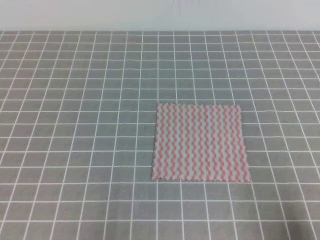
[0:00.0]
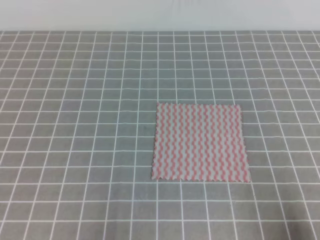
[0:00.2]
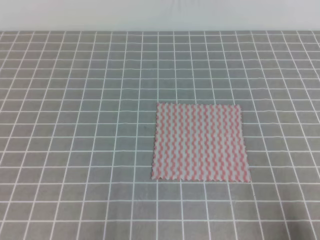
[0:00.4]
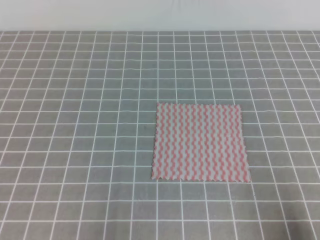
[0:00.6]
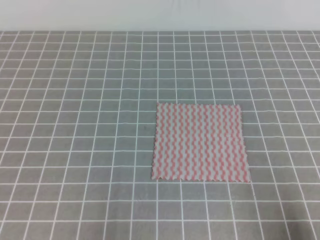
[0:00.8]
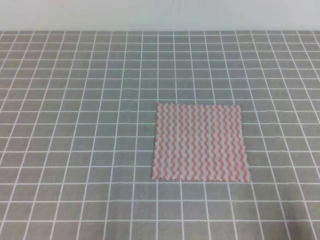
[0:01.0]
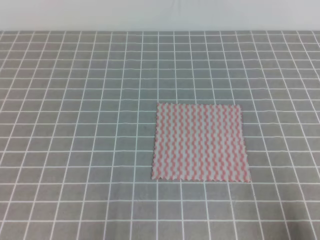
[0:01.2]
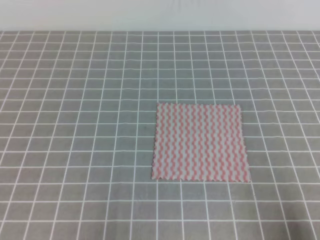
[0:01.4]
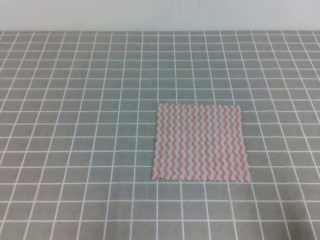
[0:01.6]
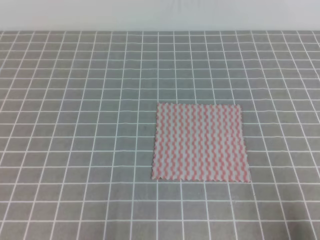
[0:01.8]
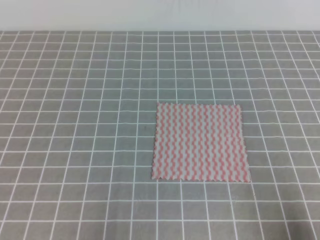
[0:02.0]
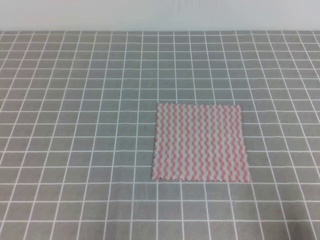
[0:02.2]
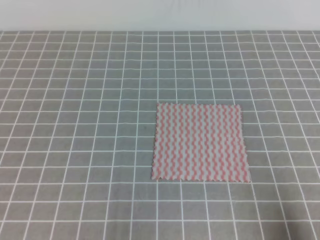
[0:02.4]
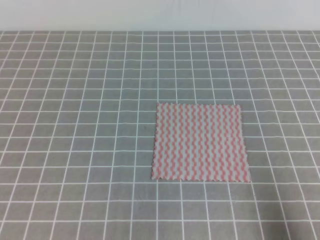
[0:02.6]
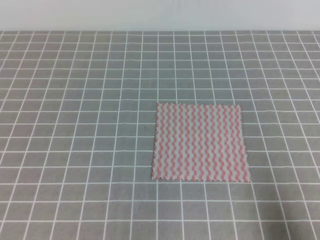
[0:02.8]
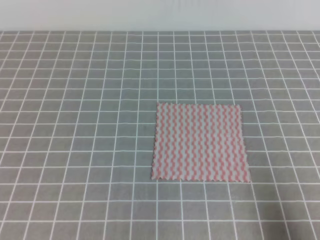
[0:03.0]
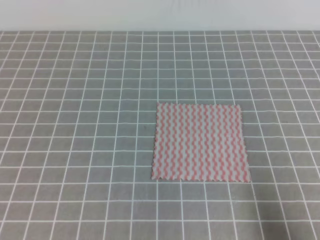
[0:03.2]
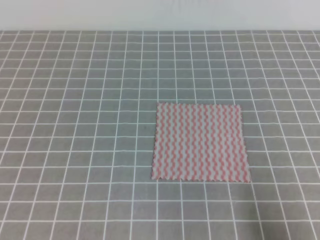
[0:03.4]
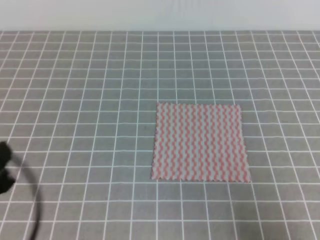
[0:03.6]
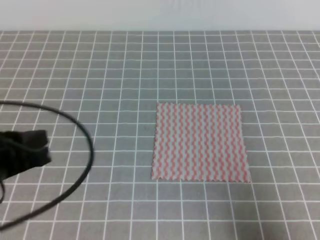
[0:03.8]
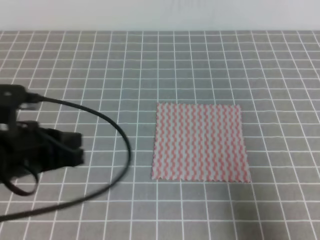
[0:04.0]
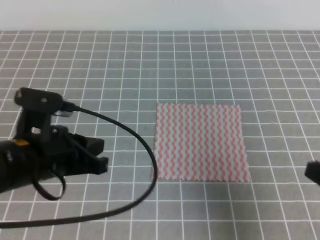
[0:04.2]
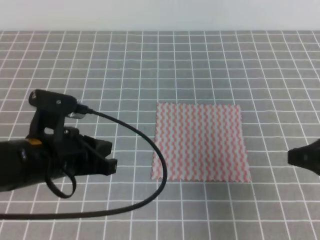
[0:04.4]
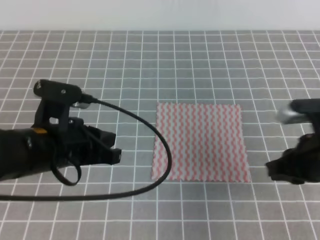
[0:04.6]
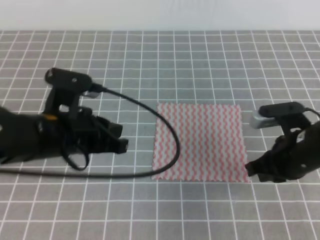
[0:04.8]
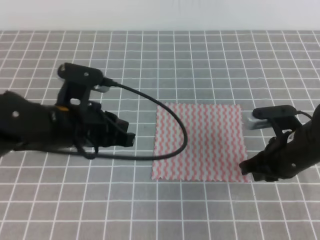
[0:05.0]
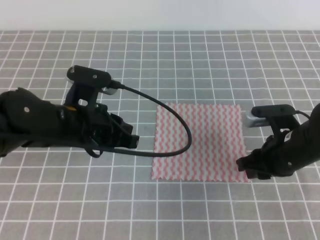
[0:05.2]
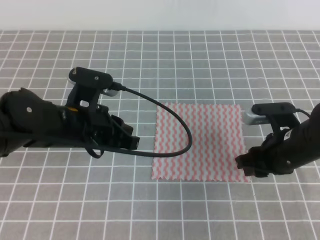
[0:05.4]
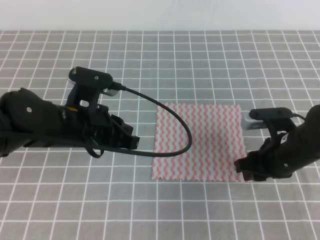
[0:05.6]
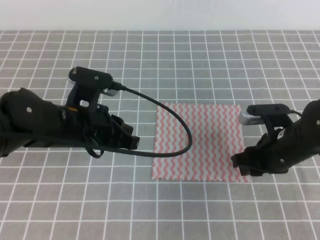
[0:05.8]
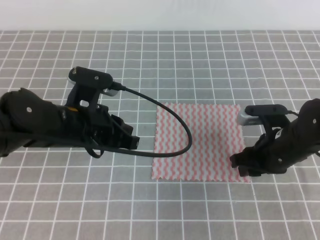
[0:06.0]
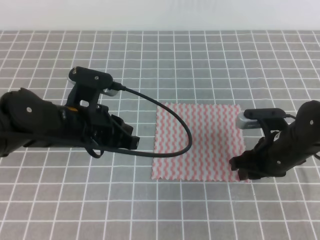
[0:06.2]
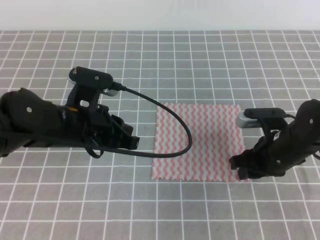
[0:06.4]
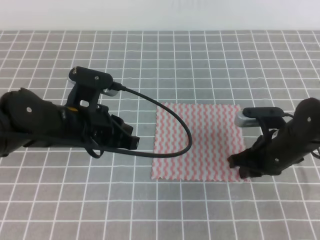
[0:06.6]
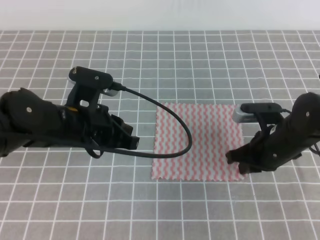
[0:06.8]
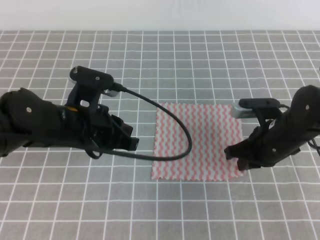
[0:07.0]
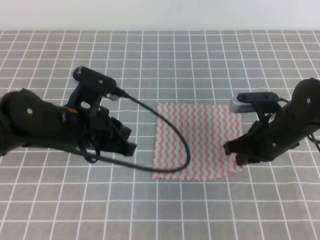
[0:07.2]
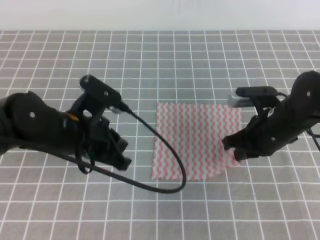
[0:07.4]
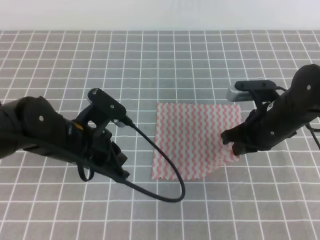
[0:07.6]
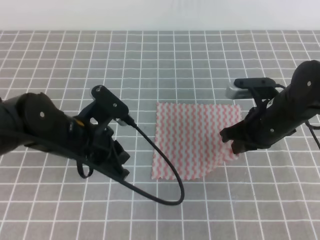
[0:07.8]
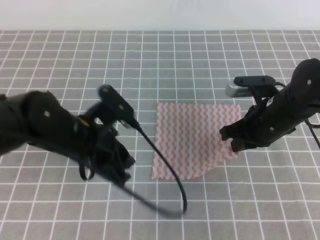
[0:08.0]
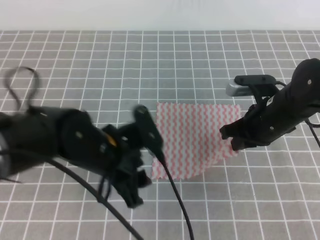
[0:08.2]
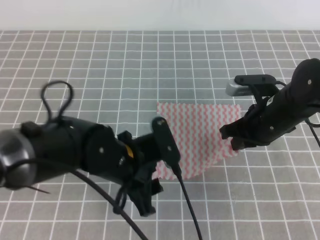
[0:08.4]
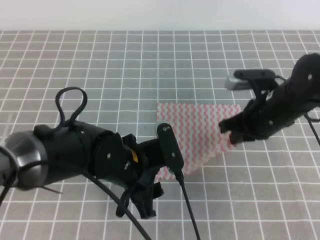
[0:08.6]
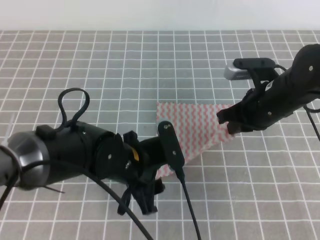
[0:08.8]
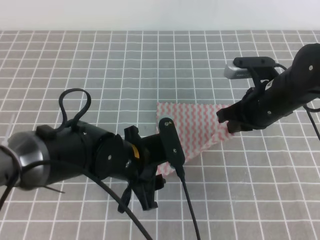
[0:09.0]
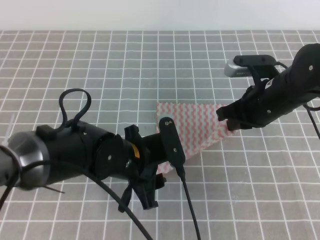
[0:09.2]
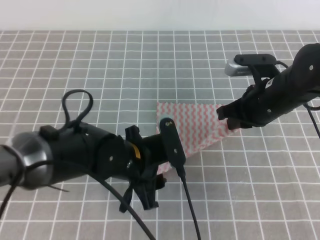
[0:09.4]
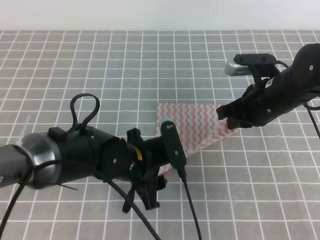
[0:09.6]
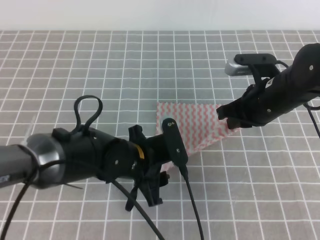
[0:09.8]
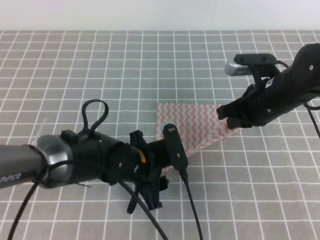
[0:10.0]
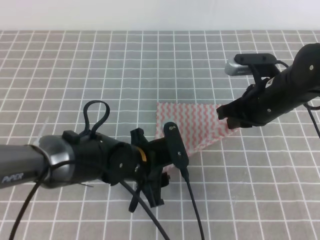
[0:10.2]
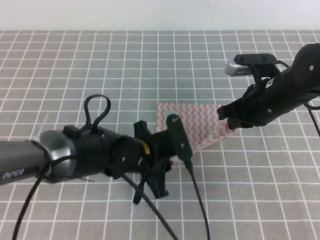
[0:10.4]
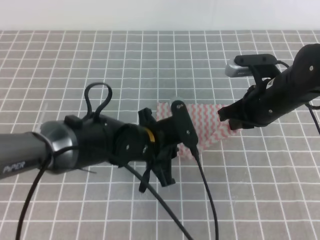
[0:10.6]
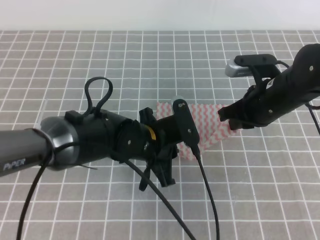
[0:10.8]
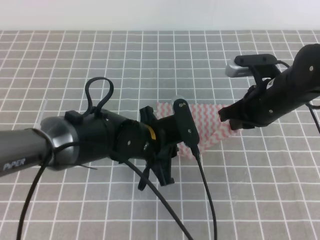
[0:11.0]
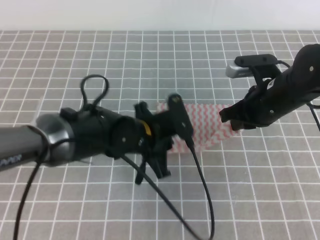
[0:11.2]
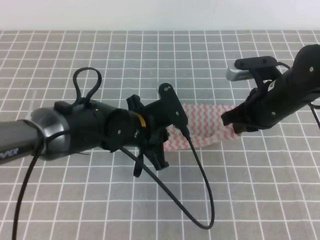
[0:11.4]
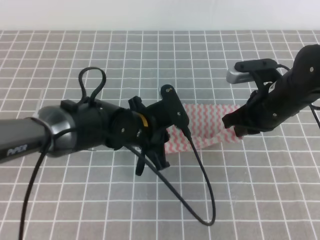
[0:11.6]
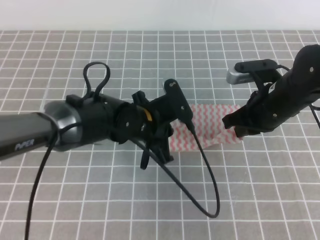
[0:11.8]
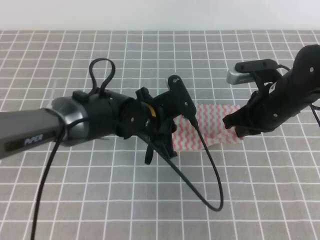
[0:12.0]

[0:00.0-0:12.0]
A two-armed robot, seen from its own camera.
Step, 0:00.0 to 0:11.2: Fold the towel upwards with the both gripper.
0:00.0 to 0:01.6: The two grippers keep their place.
0:03.0 to 0:04.4: The left gripper shifts some 20 cm forward and to the right; the right gripper heads forward, upward and to the left, covering roughly 15 cm.
0:04.4 to 0:06.0: The left gripper moves forward, roughly 5 cm; the right gripper travels forward, downward and to the left by approximately 15 cm, and opens.
0:06.0 to 0:07.6: The right gripper closes.
0:07.6 to 0:09.0: The left gripper heads to the right, covering some 5 cm, and opens.
0:09.0 to 0:10.4: The left gripper closes up.
0:10.4 to 0:12.0: The left gripper travels forward by approximately 5 cm, and closes.

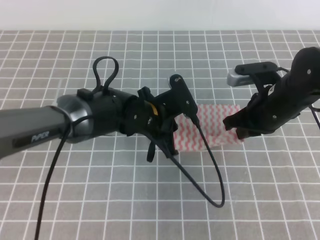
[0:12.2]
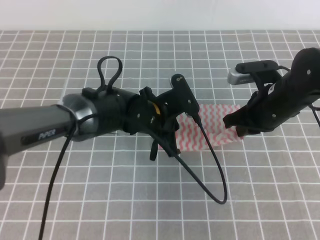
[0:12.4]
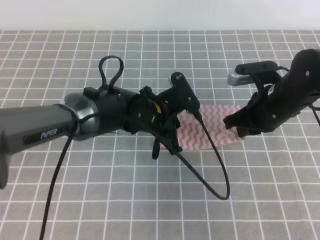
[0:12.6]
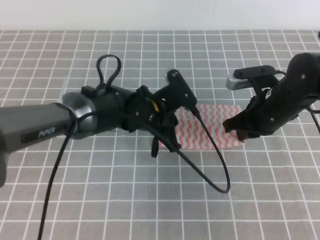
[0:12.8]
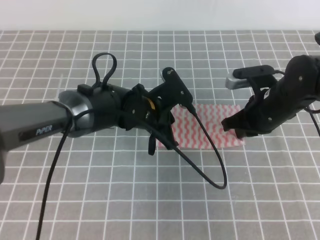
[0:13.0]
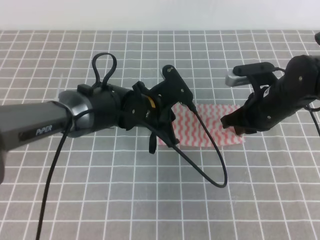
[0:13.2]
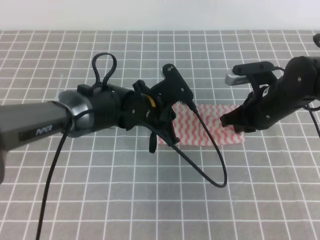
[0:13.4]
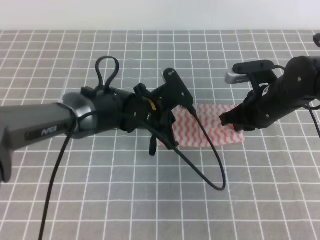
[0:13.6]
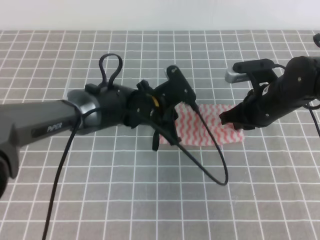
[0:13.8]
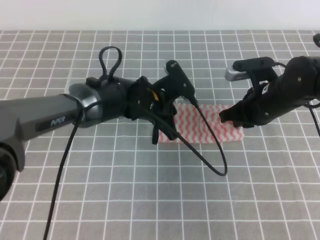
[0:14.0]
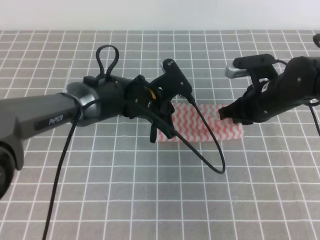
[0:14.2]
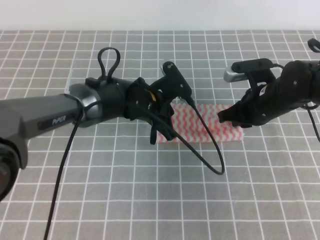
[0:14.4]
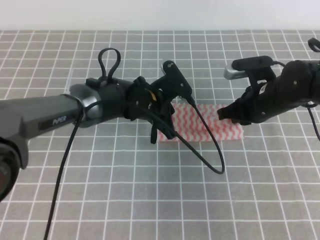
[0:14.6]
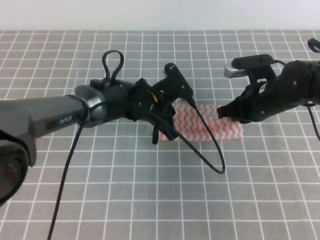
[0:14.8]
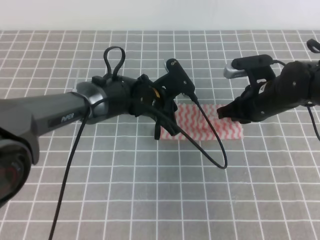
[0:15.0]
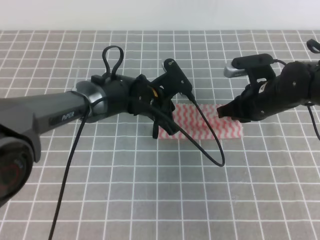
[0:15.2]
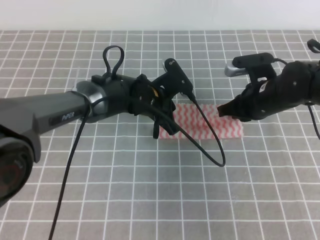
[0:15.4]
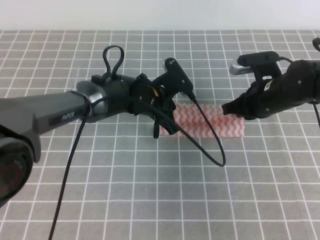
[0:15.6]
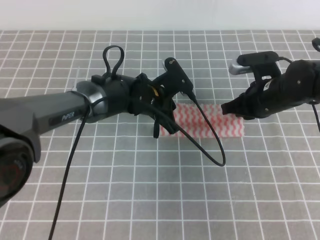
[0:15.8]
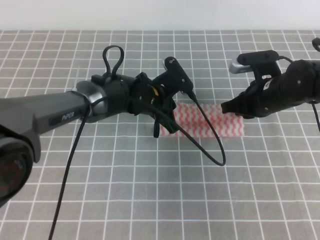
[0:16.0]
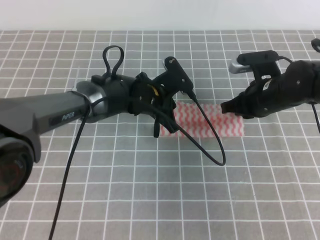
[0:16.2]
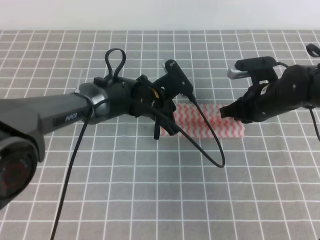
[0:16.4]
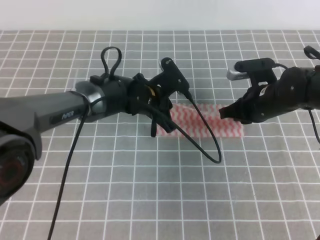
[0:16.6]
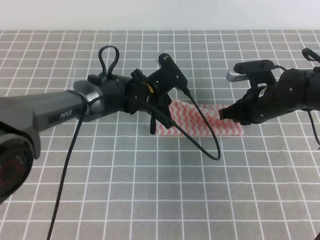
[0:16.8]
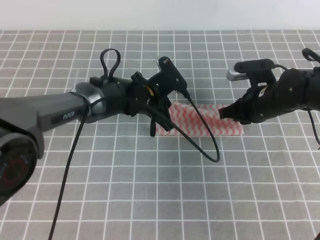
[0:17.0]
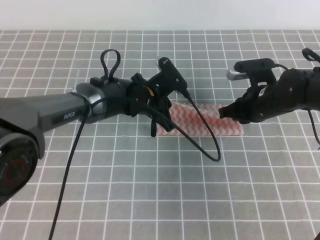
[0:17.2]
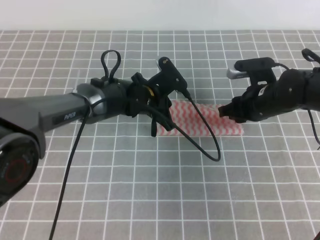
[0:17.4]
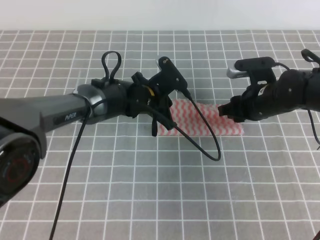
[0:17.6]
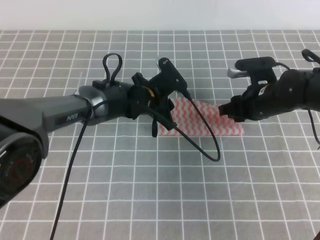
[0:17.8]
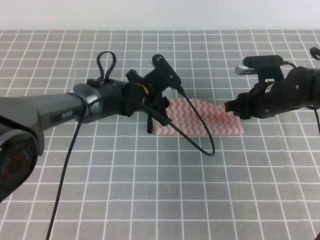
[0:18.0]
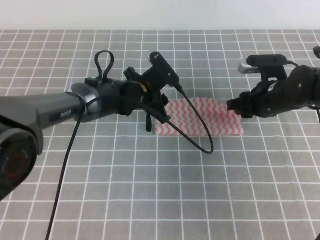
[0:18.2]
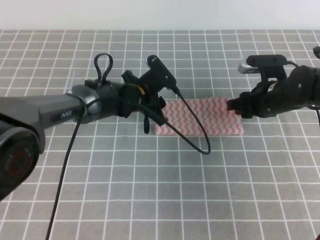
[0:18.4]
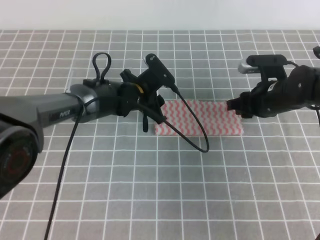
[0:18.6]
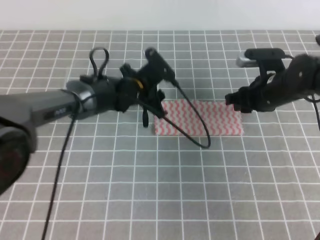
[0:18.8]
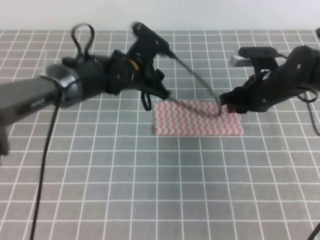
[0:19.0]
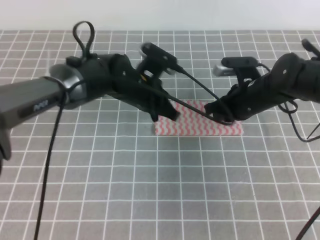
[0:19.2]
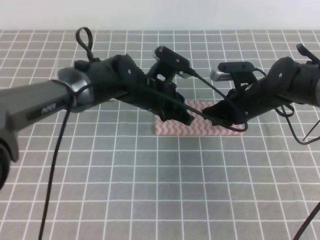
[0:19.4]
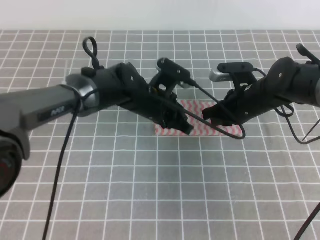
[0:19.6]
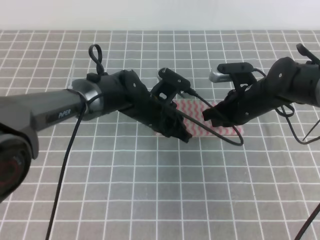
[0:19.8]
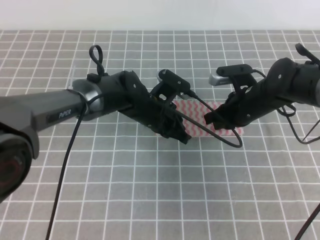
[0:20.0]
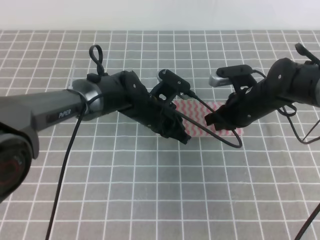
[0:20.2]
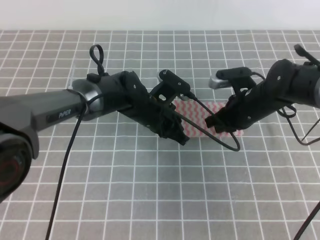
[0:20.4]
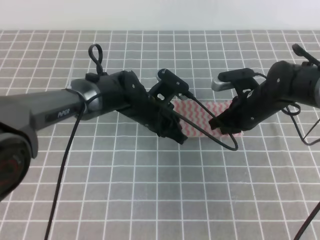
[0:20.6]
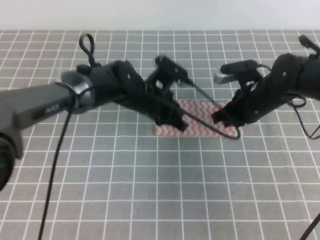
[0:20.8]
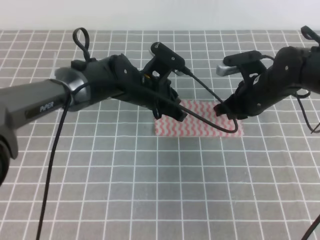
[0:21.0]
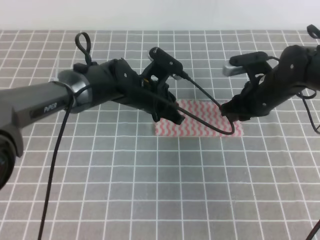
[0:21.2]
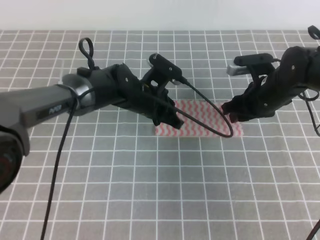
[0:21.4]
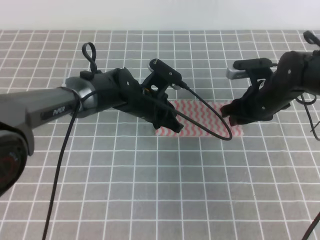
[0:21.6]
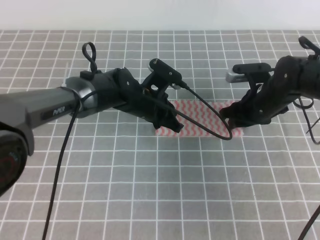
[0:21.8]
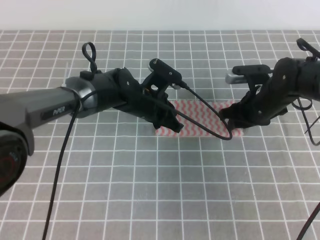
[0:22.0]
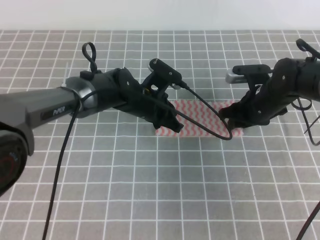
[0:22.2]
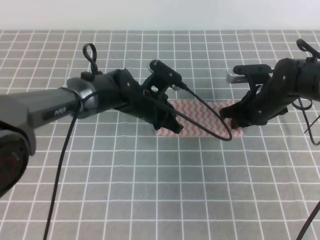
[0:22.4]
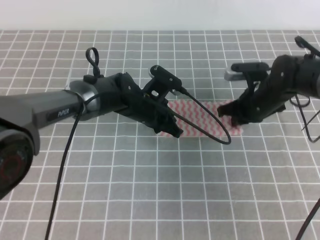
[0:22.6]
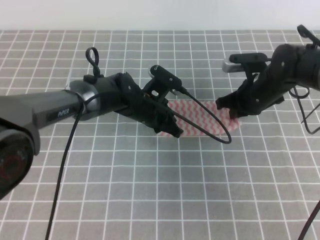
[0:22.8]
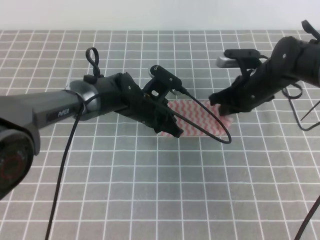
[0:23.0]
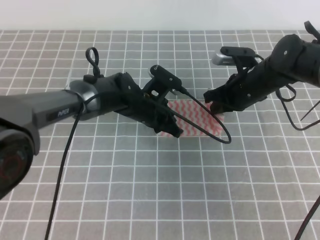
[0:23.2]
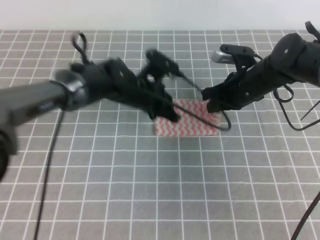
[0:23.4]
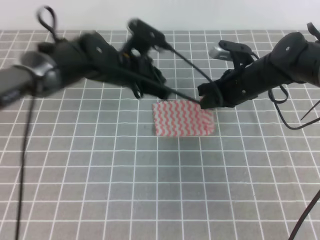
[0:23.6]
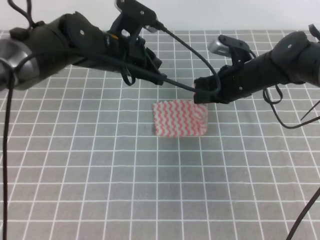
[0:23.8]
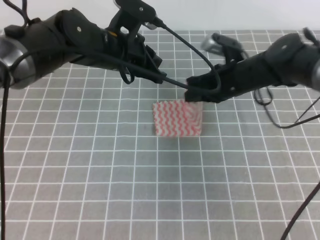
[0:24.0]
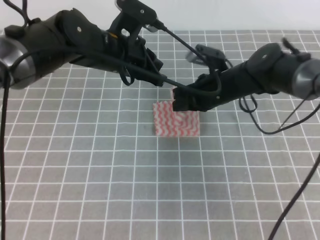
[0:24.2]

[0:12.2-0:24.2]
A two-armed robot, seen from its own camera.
Step, 0:12.6 to 0:15.4: Fold the towel from right to left with the right gripper.
Step, 0:15.6 to 0:16.2: Tidy up the towels.
0:12.2 to 0:13.8: The grippers stay close to where they were, moving slightly.
0:13.8 to 0:16.6: There are only small adjustments of the grippers.
0:16.6 to 0:18.2: The right gripper opens its fingers; the left gripper opens its fingers.
0:18.2 to 0:19.8: The left gripper changes place by roughly 5 cm, and closes up. The right gripper closes its fingers.
0:19.8 to 0:21.2: The right gripper opens up.
0:21.2 to 0:22.6: The right gripper closes its fingers.
0:22.6 to 0:24.2: The left gripper shifts roughly 15 cm upward, while the right gripper travels to the left by about 5 cm.
